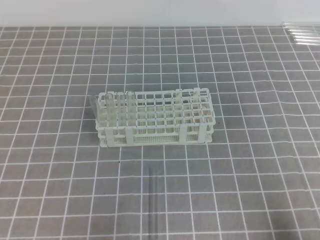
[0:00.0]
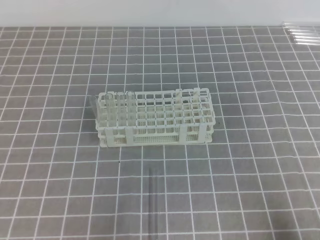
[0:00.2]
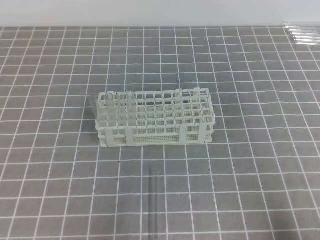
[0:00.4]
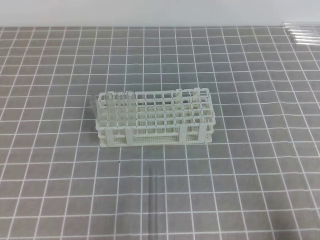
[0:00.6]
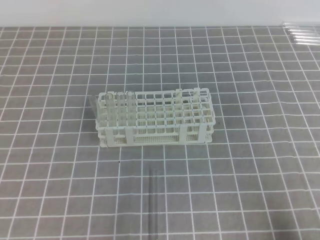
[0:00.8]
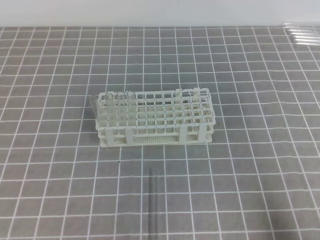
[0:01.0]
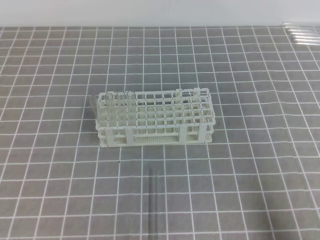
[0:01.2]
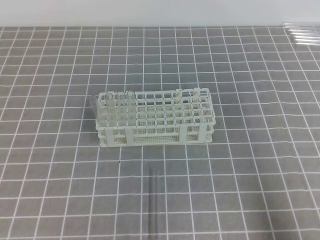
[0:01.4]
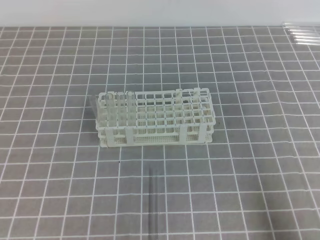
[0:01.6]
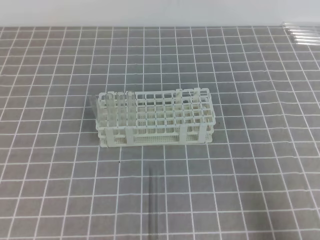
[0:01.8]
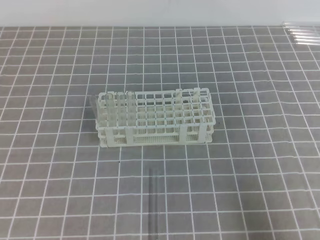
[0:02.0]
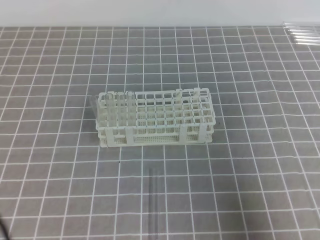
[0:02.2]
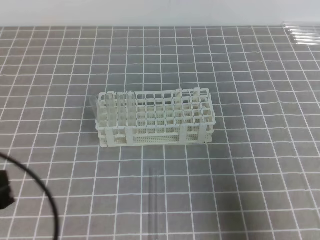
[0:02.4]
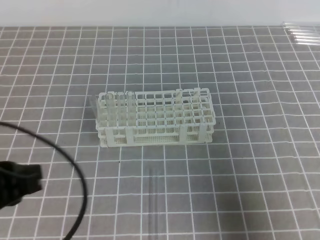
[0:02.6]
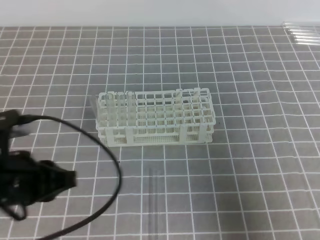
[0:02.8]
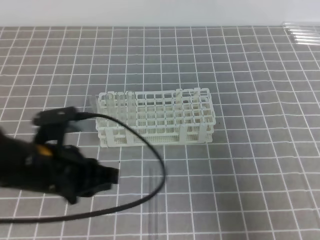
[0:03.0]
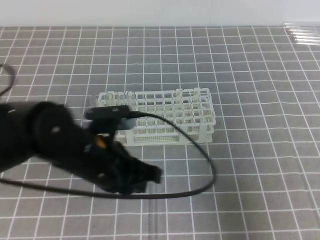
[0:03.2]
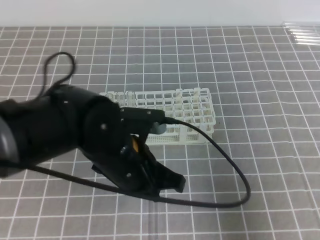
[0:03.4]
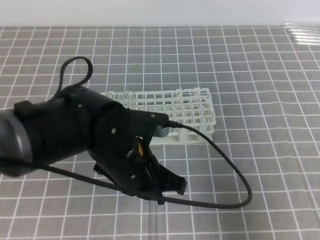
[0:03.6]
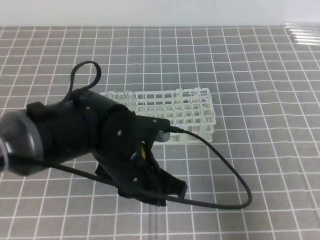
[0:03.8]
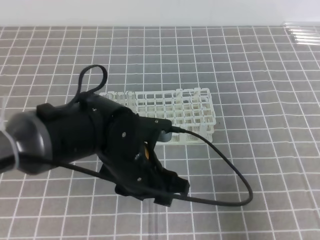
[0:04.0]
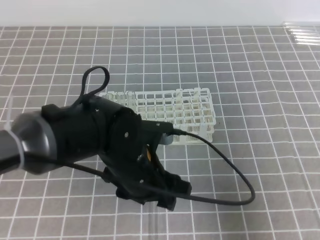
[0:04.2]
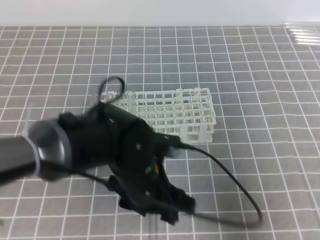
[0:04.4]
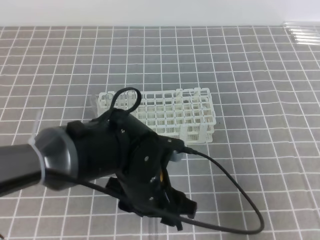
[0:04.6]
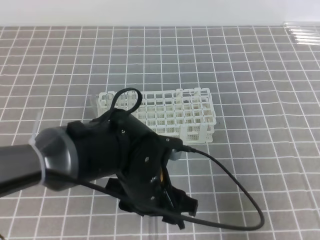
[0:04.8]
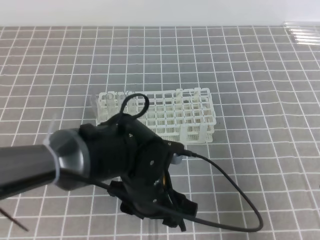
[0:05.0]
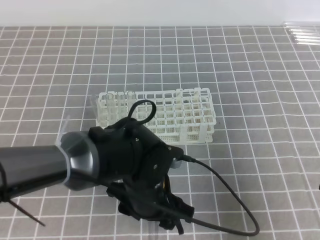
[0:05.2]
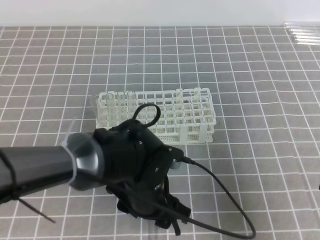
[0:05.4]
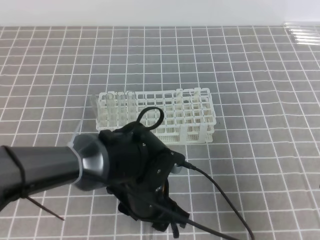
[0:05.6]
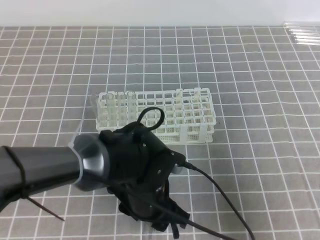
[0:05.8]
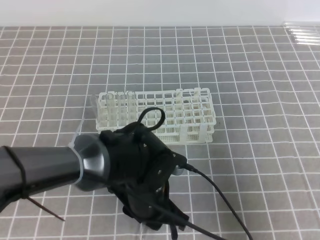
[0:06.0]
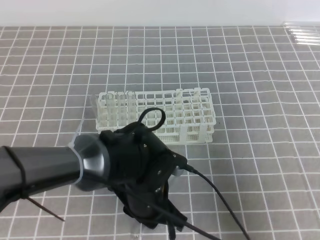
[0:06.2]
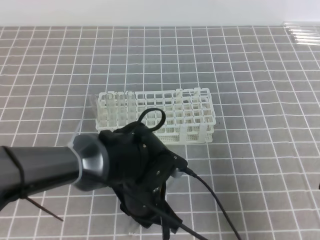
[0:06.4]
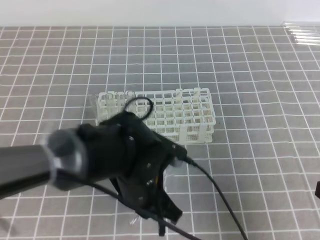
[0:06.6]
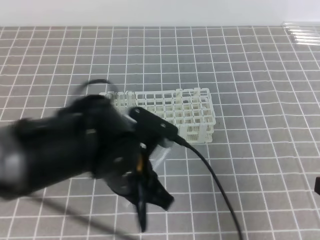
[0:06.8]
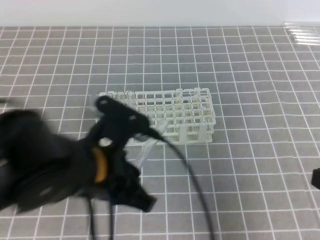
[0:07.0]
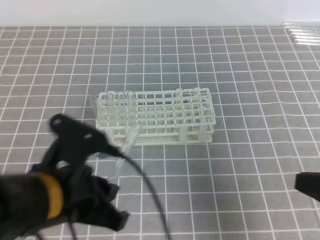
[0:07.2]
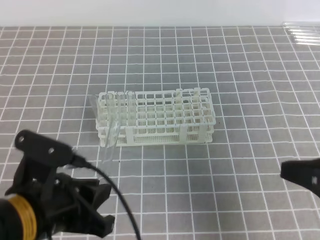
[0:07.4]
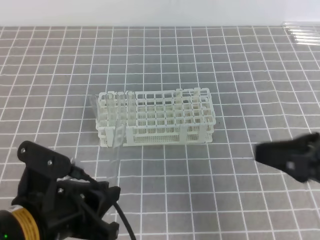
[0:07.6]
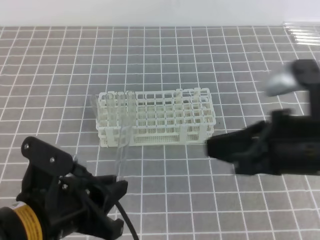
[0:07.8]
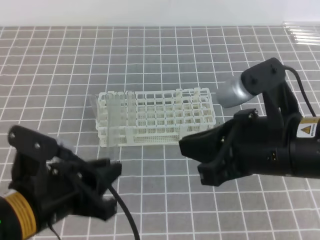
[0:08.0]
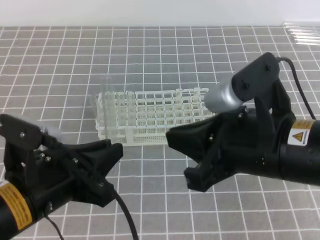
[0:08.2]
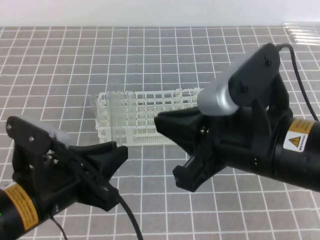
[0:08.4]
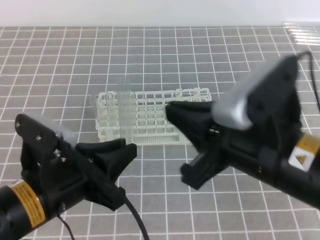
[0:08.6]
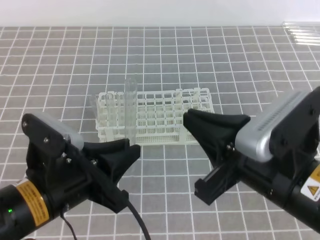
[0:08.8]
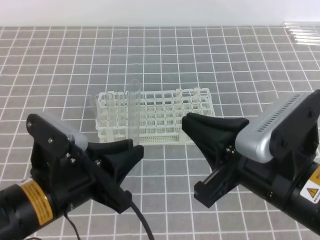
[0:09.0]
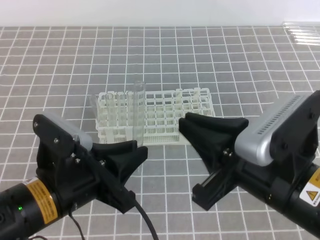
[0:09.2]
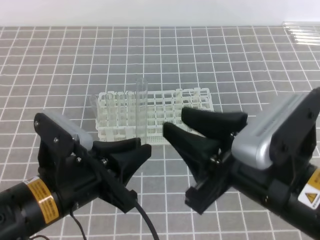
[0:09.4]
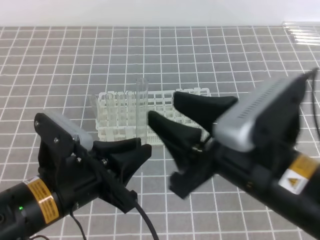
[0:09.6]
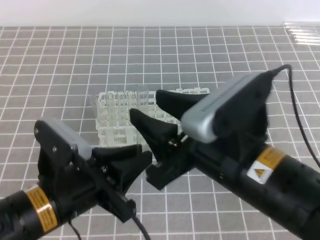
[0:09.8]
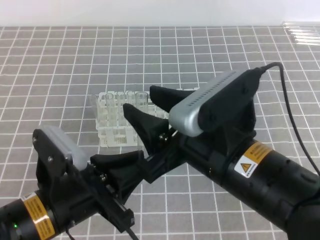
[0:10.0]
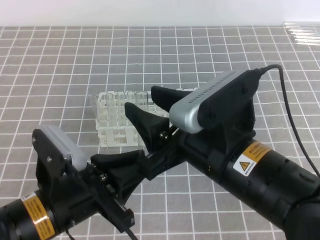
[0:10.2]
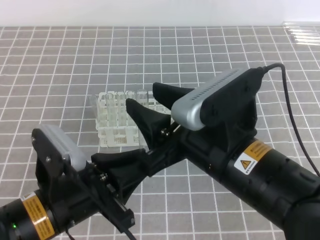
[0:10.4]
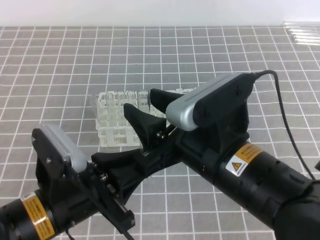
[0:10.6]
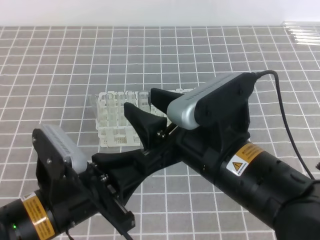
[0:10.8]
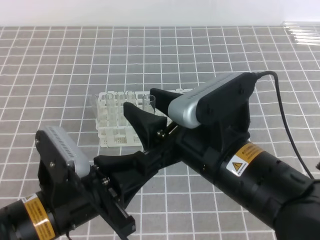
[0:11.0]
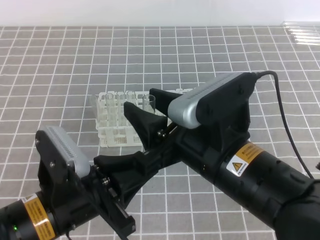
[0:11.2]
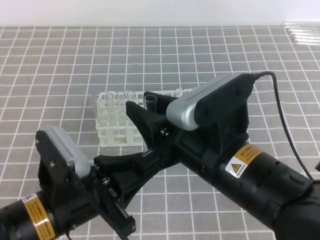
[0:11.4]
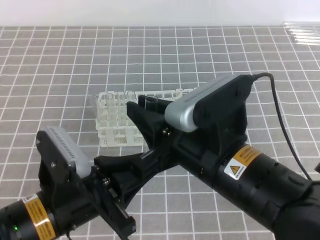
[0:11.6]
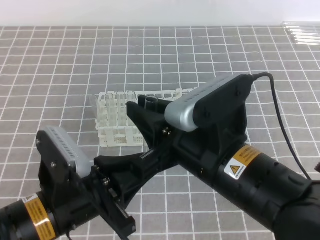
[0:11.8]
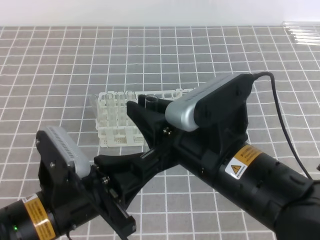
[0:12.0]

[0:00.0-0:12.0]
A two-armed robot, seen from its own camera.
0:01.6 to 0:03.0: The right gripper goes about 5 cm forward, while the left gripper heads forward and to the right, covering about 20 cm.
0:03.0 to 0:04.4: The left gripper heads to the right, covering about 15 cm, and opens up.
0:04.4 to 0:06.0: The left gripper closes.
0:06.0 to 0:07.6: The left gripper heads to the left, upward and backward, covering some 15 cm, and closes up; the right gripper goes approximately 10 cm to the left and upward.
0:07.6 to 0:09.0: The right gripper goes approximately 10 cm to the left.
0:09.0 to 0:10.4: The right gripper heads to the left, covering some 5 cm, and opens.
0:10.4 to 0:12.0: The right gripper closes its fingers.

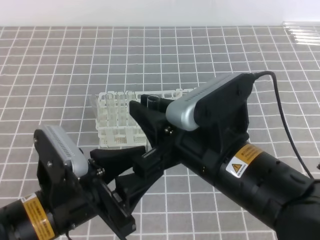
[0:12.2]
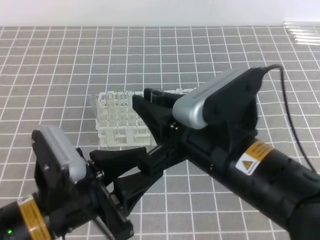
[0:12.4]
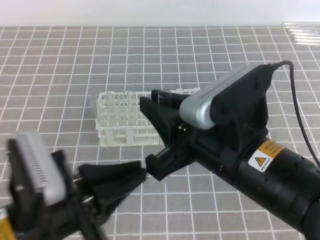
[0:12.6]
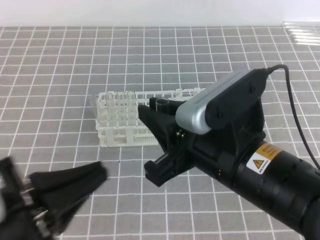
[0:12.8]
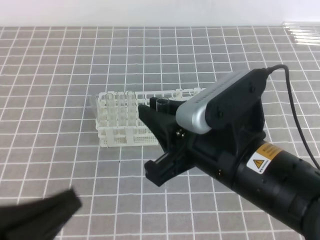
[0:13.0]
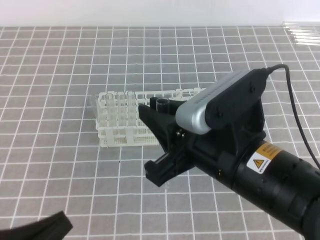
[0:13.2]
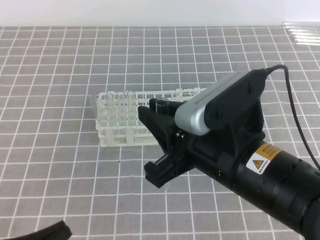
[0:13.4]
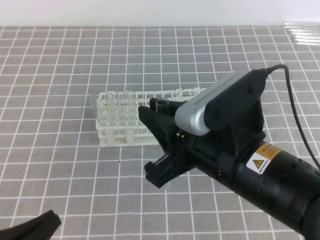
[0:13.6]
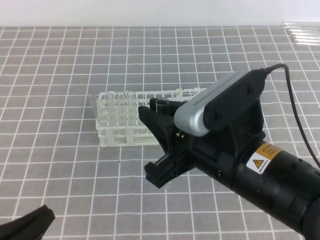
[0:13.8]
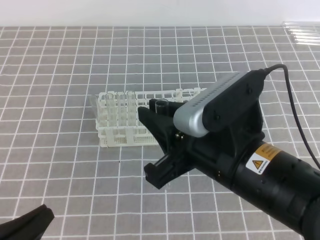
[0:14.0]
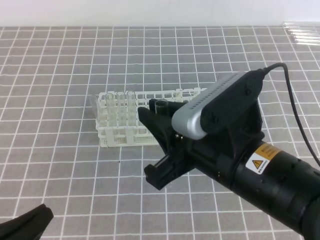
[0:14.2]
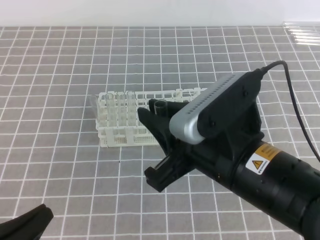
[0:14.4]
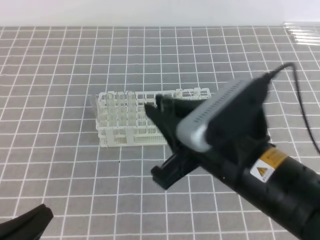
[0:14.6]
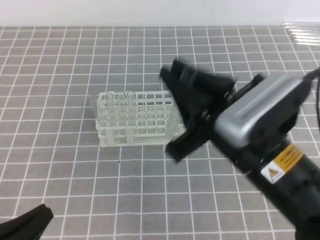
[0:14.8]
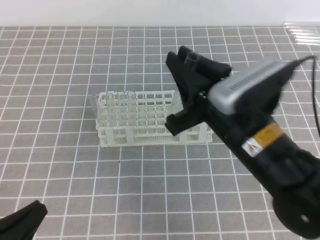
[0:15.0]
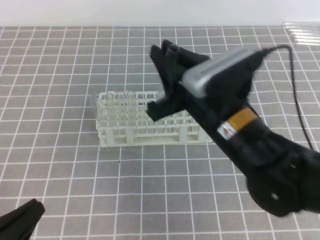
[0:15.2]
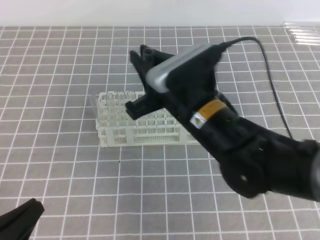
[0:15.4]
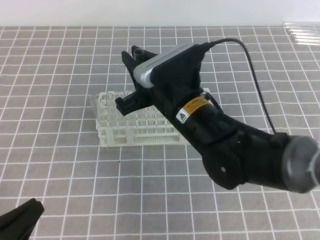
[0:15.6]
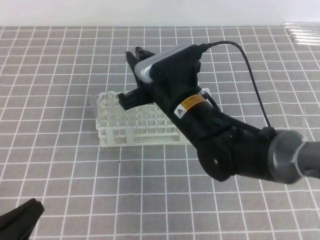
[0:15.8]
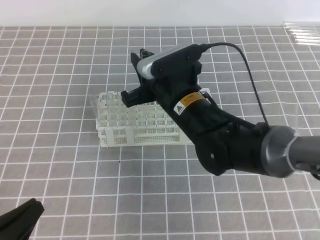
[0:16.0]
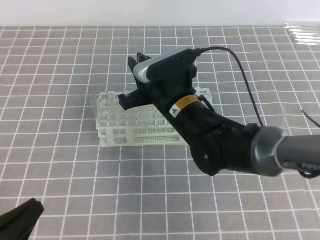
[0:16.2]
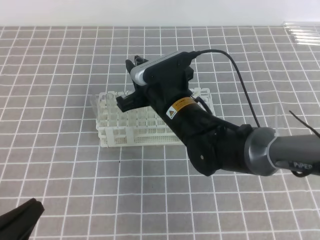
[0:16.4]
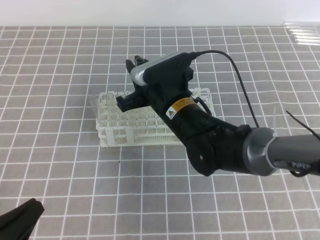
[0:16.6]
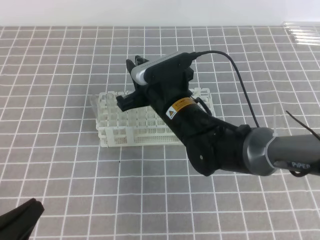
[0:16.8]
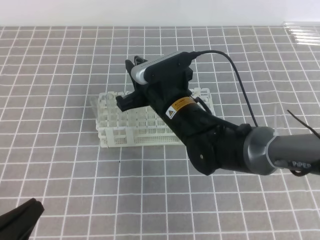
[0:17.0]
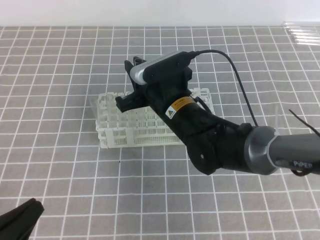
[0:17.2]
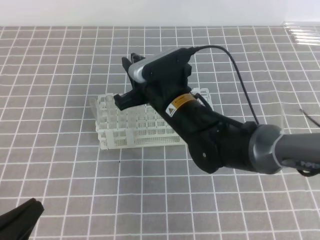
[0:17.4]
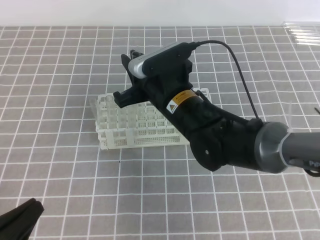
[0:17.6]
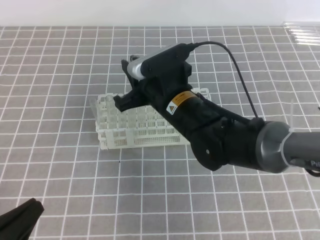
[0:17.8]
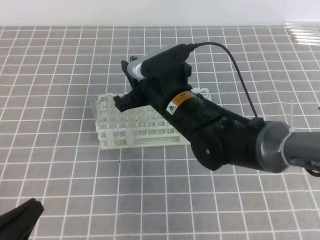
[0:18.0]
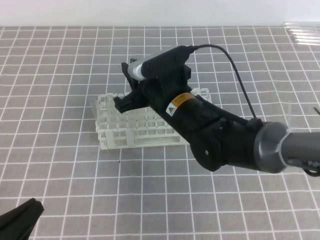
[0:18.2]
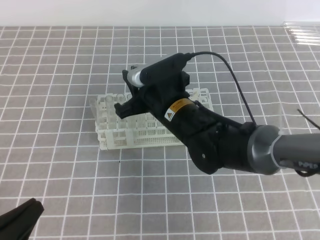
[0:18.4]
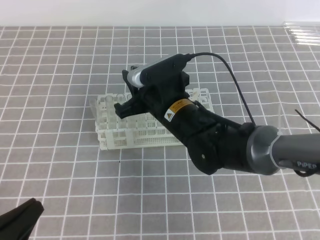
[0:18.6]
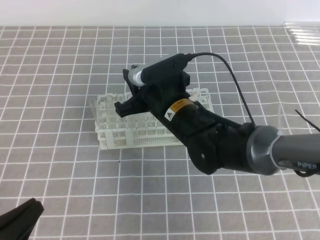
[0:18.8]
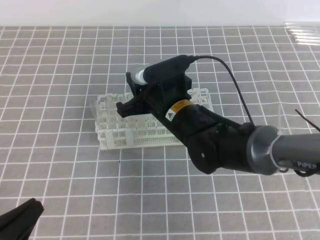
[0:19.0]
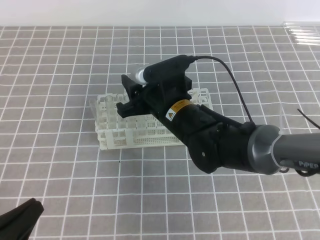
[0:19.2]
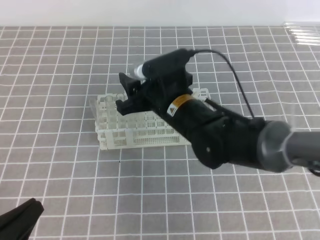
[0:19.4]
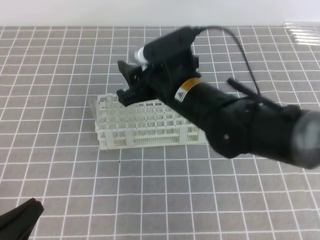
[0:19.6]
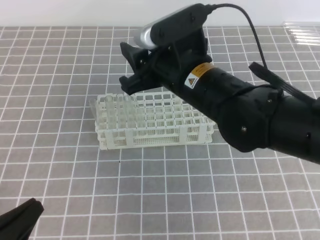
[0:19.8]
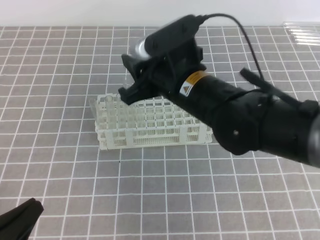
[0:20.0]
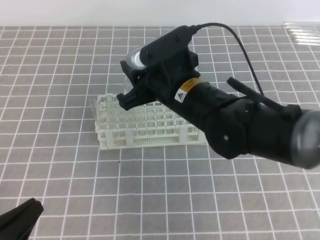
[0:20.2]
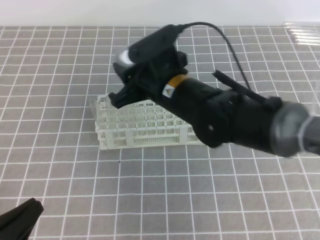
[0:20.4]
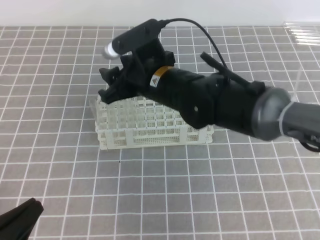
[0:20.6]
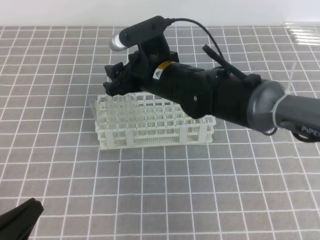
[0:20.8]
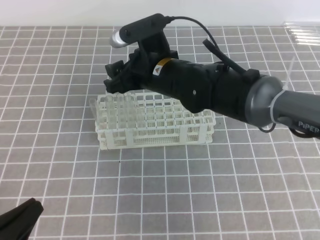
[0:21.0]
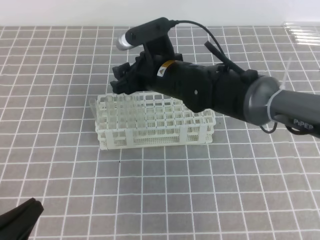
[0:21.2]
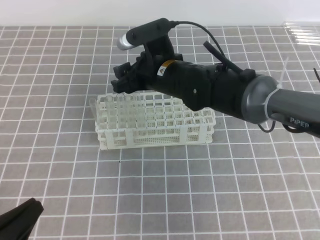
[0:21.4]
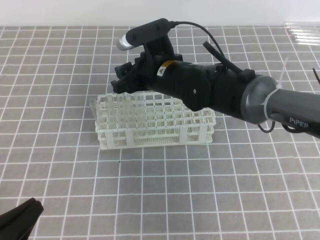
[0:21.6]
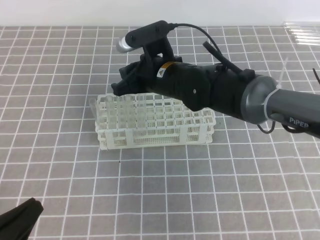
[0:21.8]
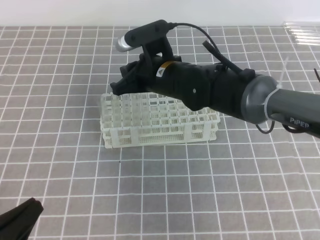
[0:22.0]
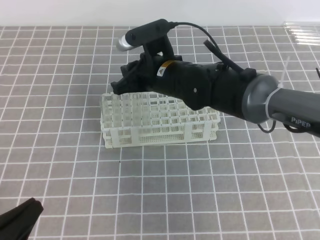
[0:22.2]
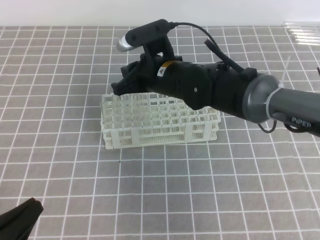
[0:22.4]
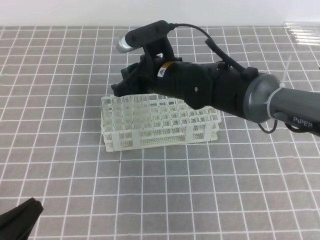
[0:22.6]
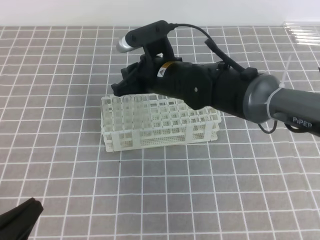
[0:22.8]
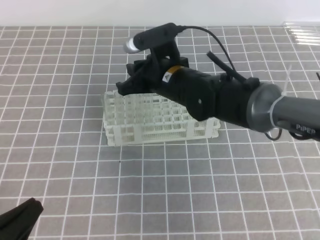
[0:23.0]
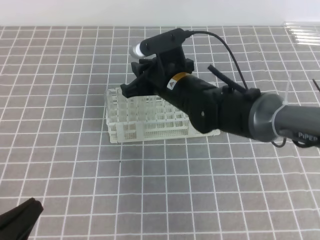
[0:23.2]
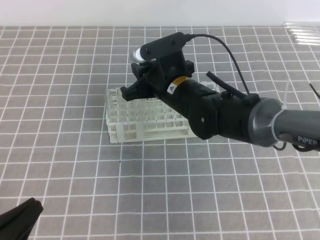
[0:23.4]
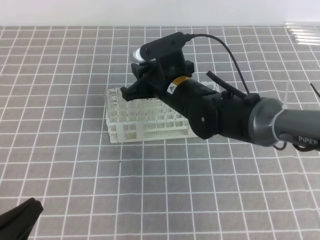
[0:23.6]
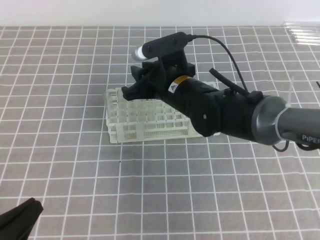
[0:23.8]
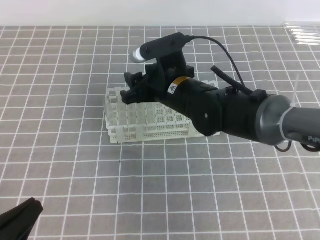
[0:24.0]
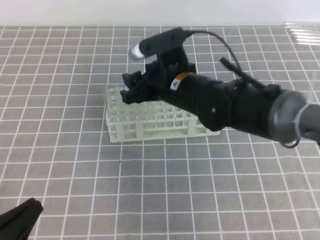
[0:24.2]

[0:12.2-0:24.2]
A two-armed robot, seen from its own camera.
0:12.2 to 0:13.8: The left gripper travels to the left and backward by some 15 cm, and closes its fingers.
0:13.8 to 0:15.2: The right gripper is displaced forward by some 10 cm.
0:15.2 to 0:16.6: The right gripper heads forward, downward and to the left, covering roughly 15 cm.
0:16.6 to 0:18.2: The grippers move only a little.
0:18.2 to 0:19.8: The right gripper travels upward by about 5 cm, and opens.
0:19.8 to 0:21.2: The right gripper moves forward, some 5 cm.
0:21.2 to 0:22.6: The right gripper closes up.
0:22.6 to 0:24.2: The right gripper opens its fingers.
